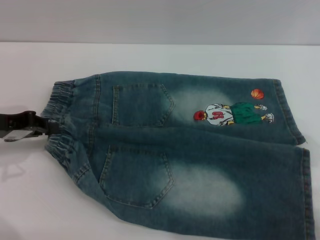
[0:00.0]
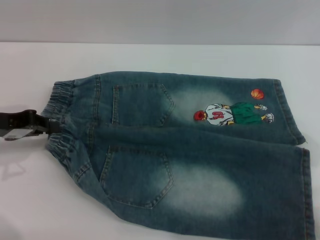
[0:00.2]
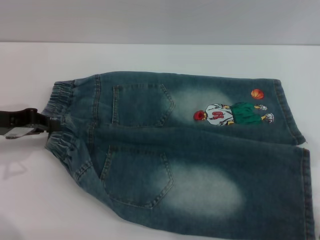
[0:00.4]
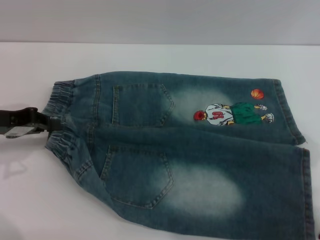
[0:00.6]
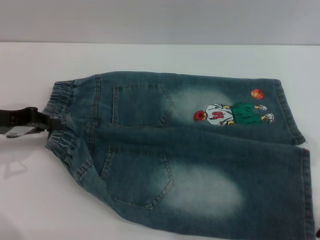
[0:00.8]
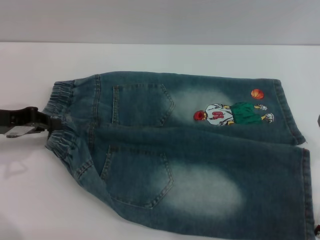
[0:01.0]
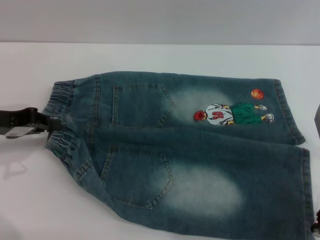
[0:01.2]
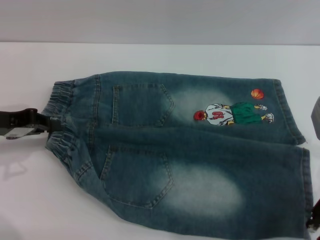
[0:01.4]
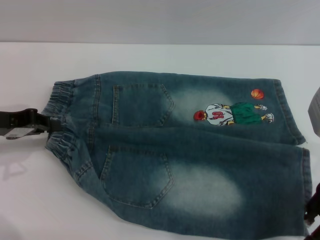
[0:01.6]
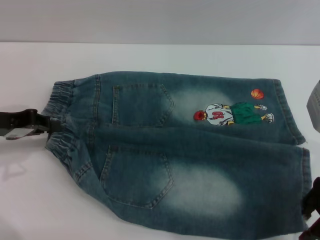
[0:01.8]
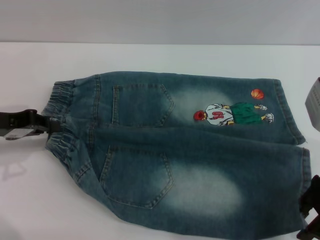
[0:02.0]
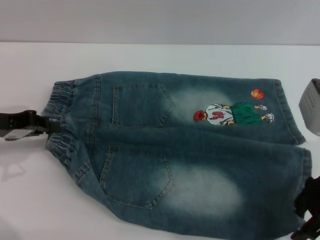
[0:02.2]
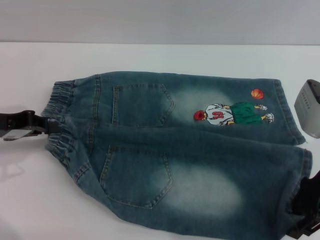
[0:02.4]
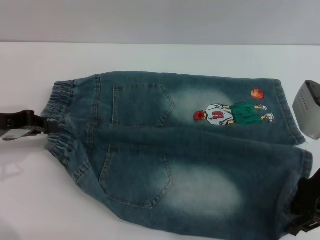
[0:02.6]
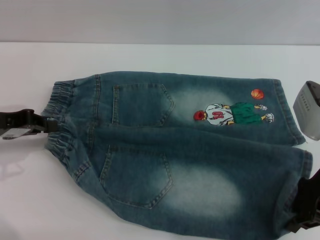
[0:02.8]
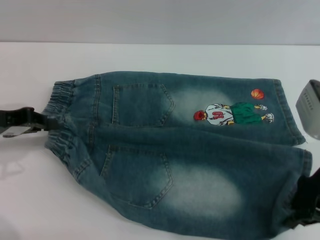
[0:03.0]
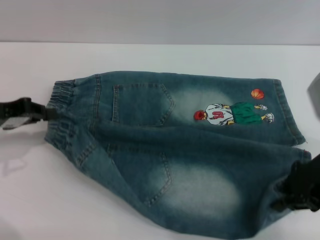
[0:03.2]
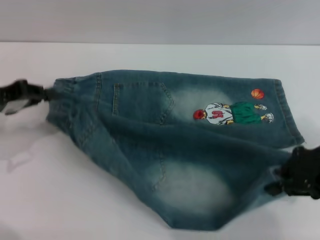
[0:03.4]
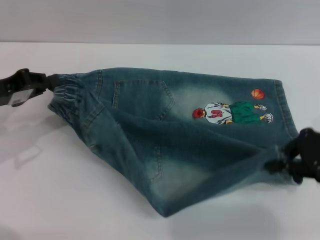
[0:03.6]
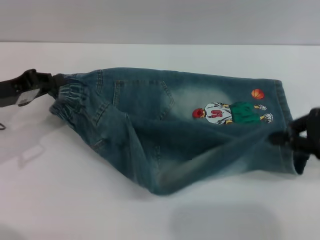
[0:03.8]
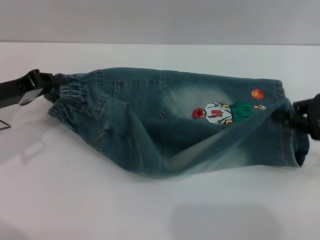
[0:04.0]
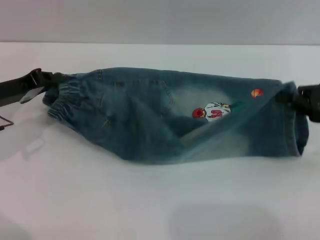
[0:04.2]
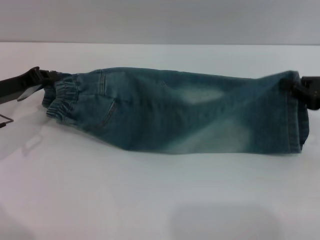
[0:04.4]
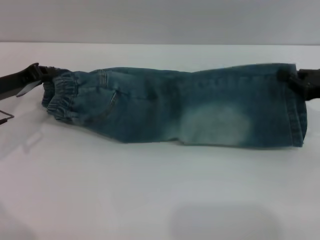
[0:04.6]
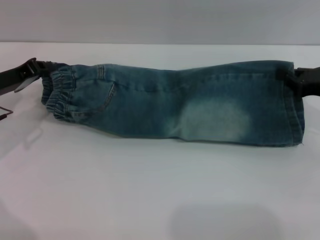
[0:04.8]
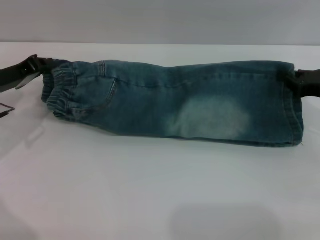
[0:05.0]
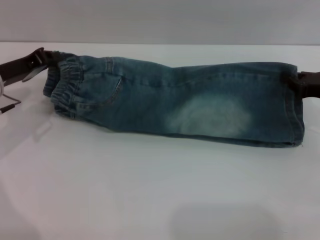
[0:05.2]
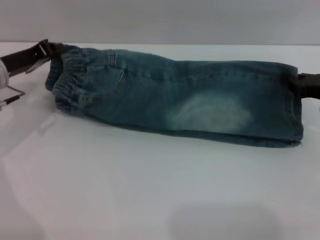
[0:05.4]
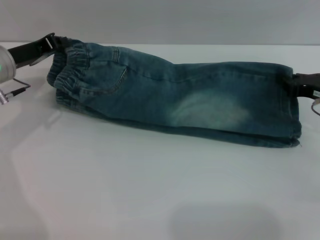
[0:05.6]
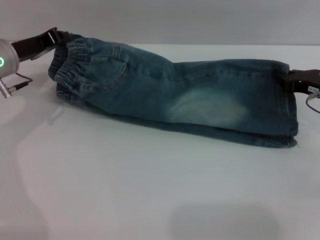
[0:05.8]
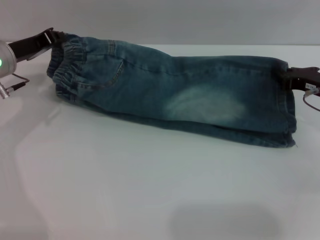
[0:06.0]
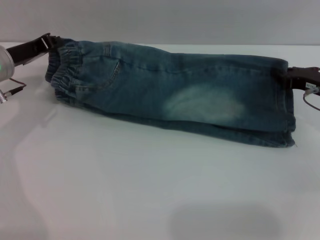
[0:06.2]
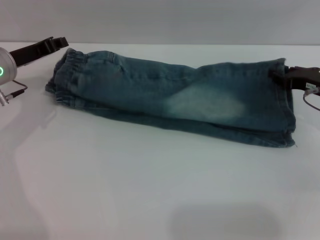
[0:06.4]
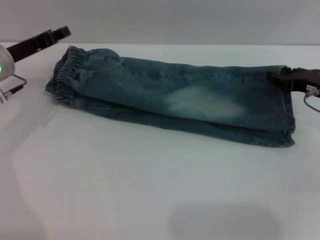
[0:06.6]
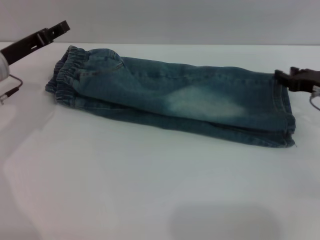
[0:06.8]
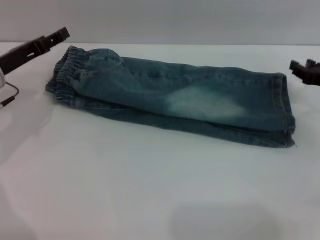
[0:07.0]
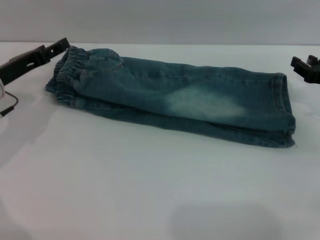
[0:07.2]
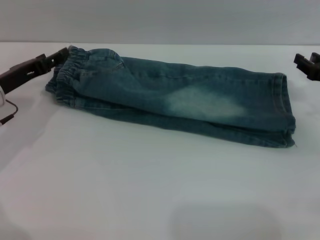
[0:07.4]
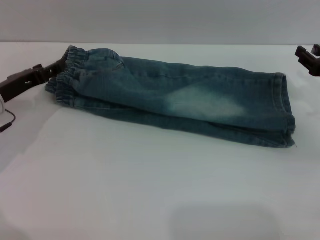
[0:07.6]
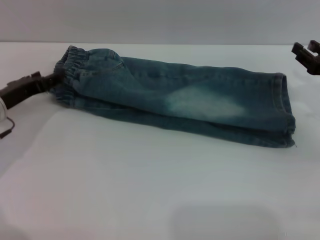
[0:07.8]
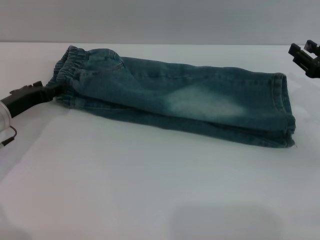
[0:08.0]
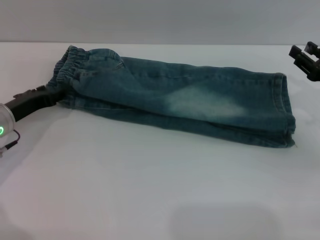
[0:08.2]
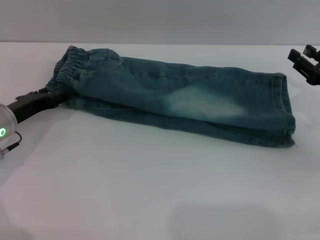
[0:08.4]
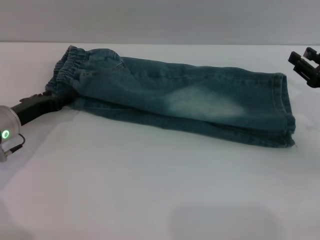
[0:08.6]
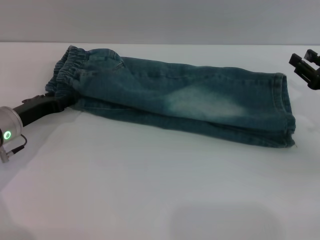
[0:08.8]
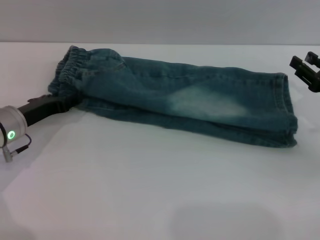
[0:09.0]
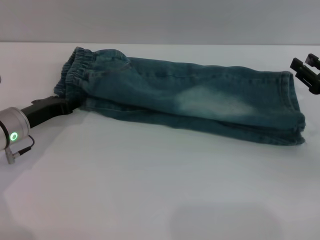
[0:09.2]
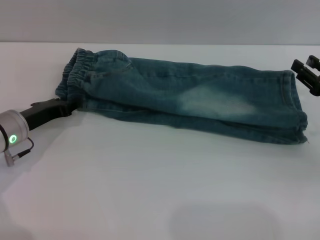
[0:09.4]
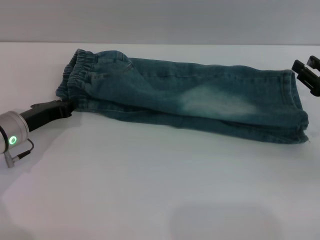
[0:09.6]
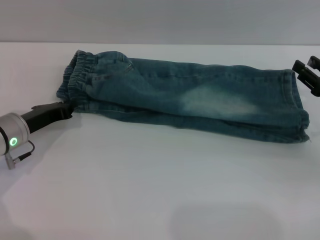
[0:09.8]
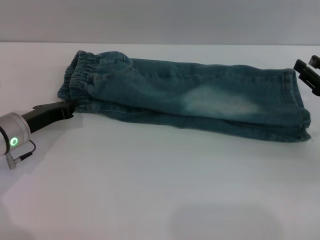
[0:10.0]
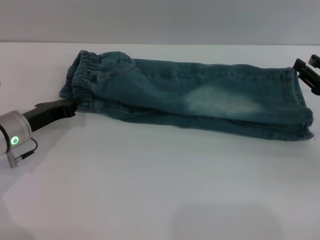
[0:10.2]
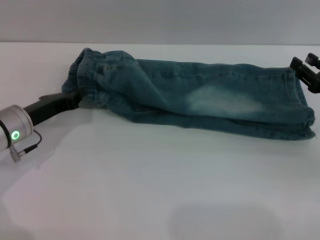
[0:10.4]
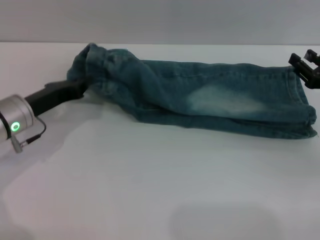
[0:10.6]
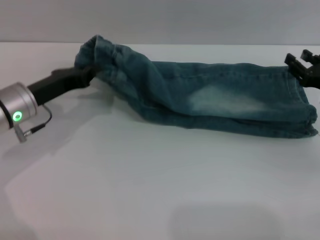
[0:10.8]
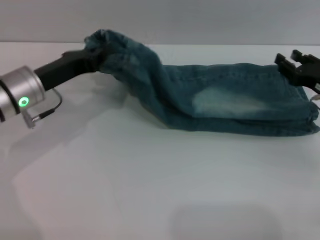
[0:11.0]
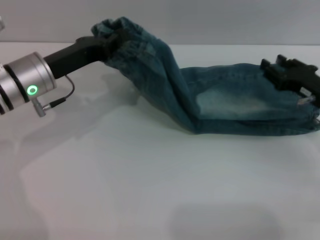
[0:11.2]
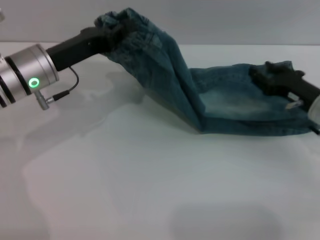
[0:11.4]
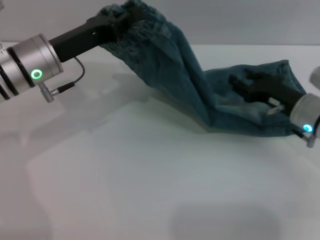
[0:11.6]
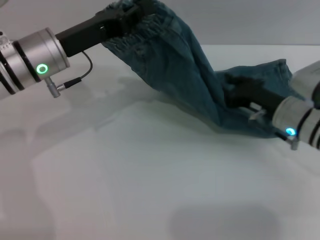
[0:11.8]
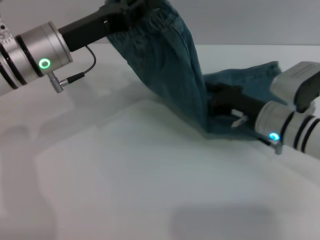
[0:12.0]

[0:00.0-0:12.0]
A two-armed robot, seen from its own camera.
Step, 0:00.0 to 0:07.0: Fold the bottom of the pants upward with both grippers.
0:00.0 to 0:01.6: There are only small adjustments of the grippers.
0:01.6 to 0:03.0: The right gripper closes.
0:03.0 to 0:04.4: The left gripper changes place by roughly 5 cm. The right gripper is displaced to the right by approximately 10 cm.
0:04.4 to 0:06.0: Both grippers travel together forward, roughly 5 cm.
0:06.0 to 0:07.6: The right gripper opens up; the left gripper travels backward by about 5 cm, and opens its fingers.
0:07.6 to 0:09.0: The grippers move only a little.
0:09.0 to 0:10.4: The left gripper closes.
0:10.4 to 0:12.0: The left gripper goes approximately 15 cm upward and to the right. The right gripper moves to the left, roughly 15 cm.

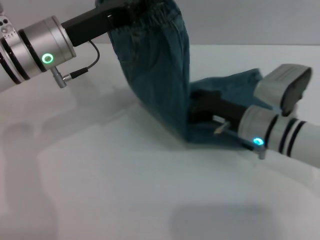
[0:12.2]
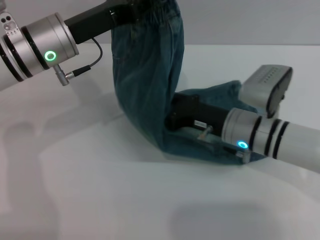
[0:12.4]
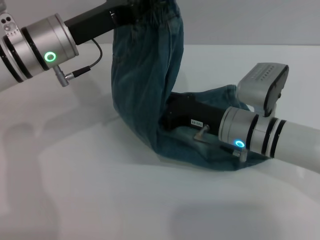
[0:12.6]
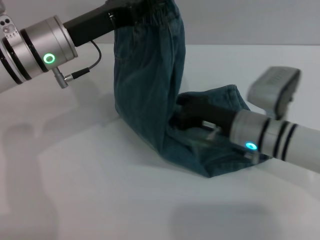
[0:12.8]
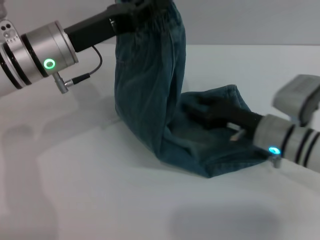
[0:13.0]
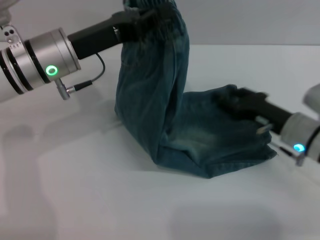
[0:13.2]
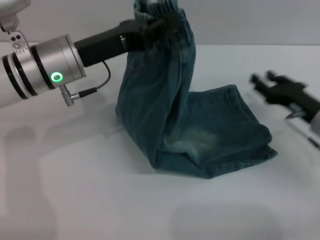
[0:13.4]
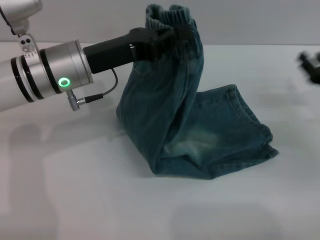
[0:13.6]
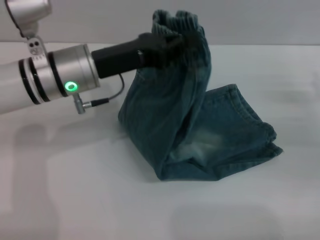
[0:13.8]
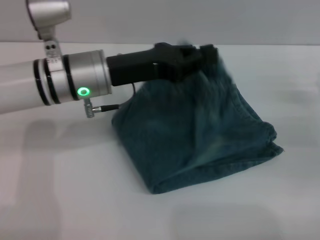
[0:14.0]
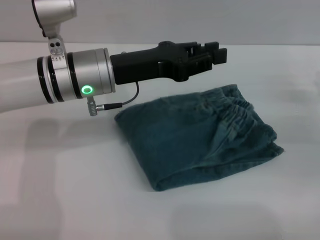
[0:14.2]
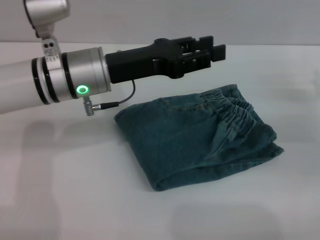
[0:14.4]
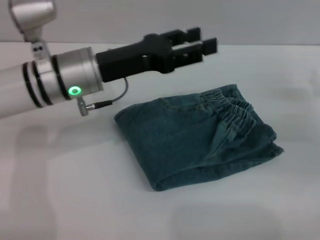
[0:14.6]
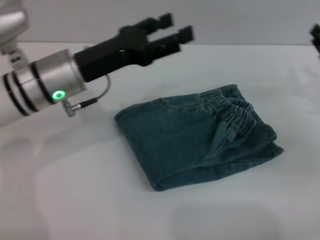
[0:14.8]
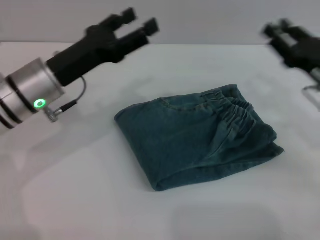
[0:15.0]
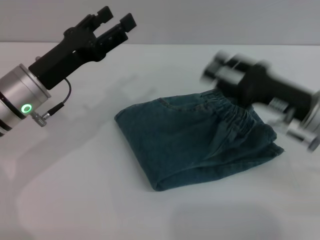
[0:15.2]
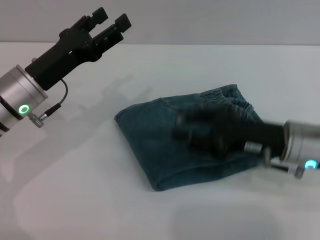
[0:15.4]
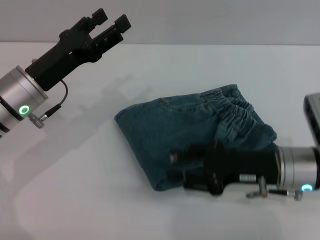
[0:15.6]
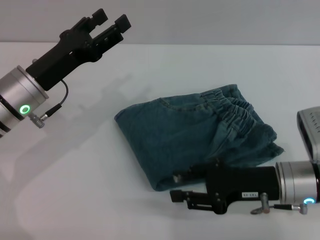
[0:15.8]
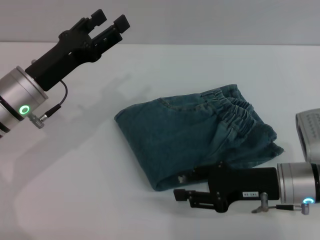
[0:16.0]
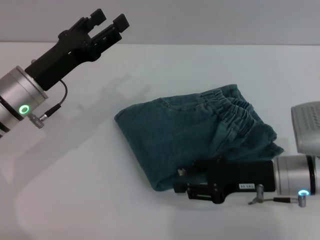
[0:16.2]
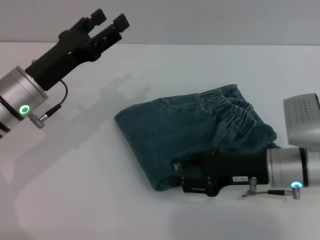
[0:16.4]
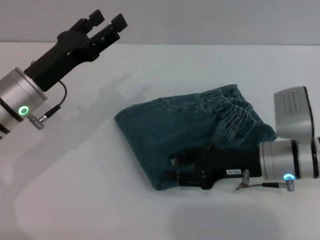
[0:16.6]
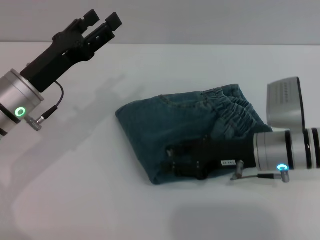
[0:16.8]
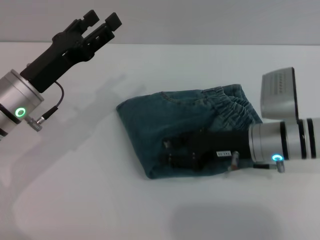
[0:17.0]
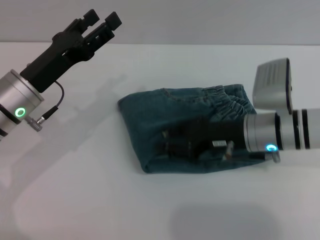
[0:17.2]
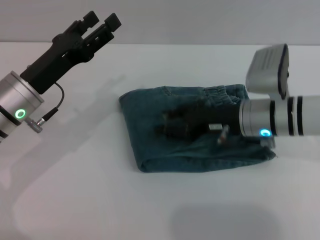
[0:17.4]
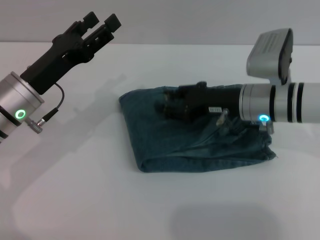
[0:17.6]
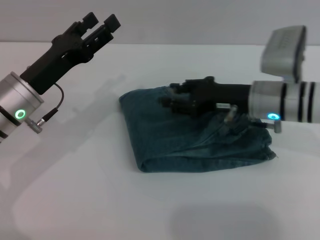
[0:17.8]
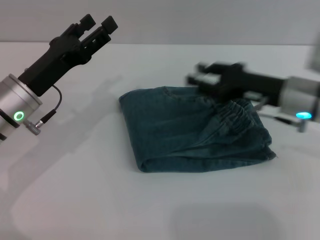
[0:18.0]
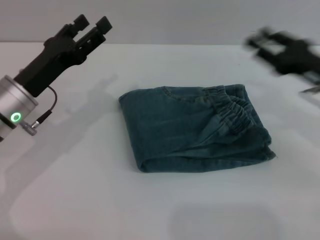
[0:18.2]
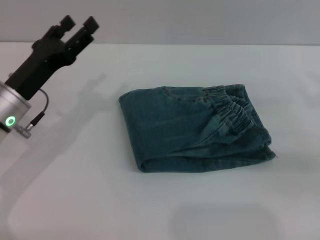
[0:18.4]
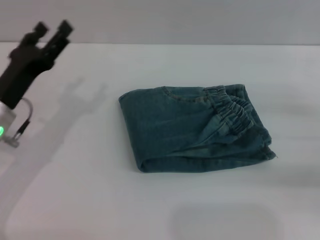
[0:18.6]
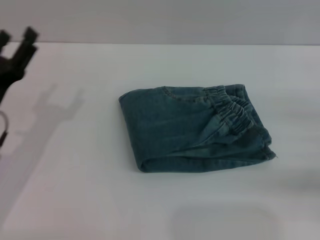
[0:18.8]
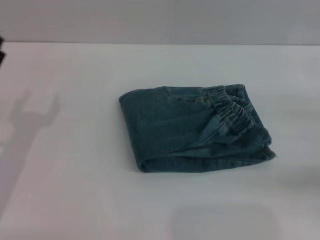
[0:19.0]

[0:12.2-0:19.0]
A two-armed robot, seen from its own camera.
Step, 0:12.2 to 0:14.2: Fold the pants from left to right with the left gripper.
Step, 0:14.6 to 0:17.8: Place the folded trousers onto the center area with the right grippers.
0:12.2 to 0:13.6: The right gripper heads to the right, covering about 15 cm.
0:13.6 to 0:15.0: The right gripper goes roughly 5 cm to the left. The left gripper shifts by roughly 5 cm, and opens its fingers.
0:15.0 to 0:16.2: The right gripper travels to the left and backward by approximately 10 cm.
0:16.2 to 0:17.6: The right gripper goes about 10 cm forward.
0:17.6 to 0:19.0: The right gripper heads to the right and backward, covering some 25 cm, while the left gripper moves backward and to the left, some 10 cm.

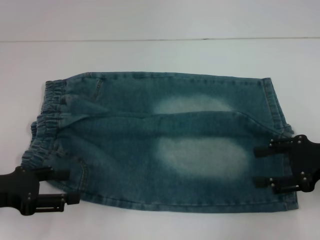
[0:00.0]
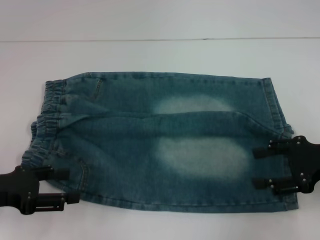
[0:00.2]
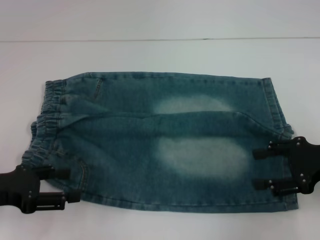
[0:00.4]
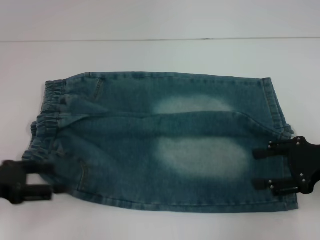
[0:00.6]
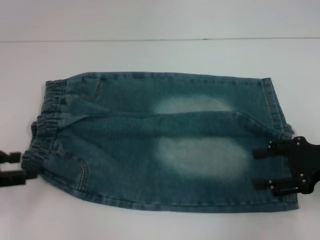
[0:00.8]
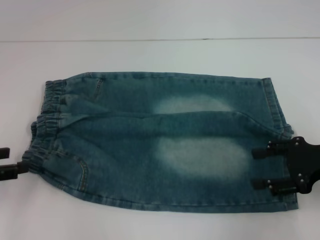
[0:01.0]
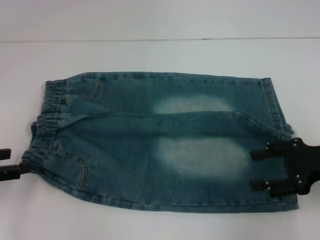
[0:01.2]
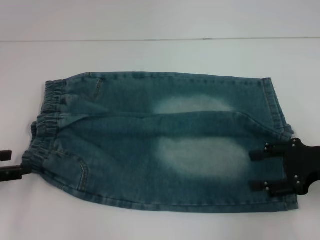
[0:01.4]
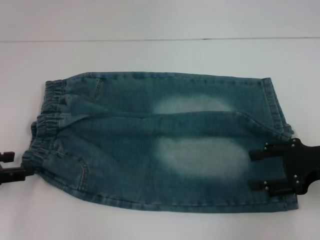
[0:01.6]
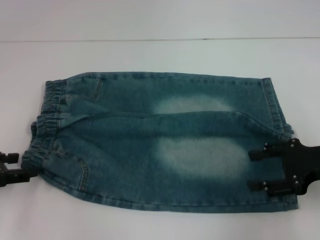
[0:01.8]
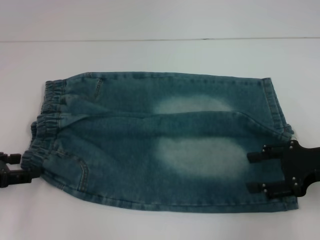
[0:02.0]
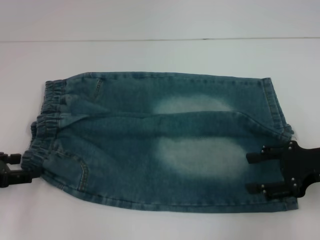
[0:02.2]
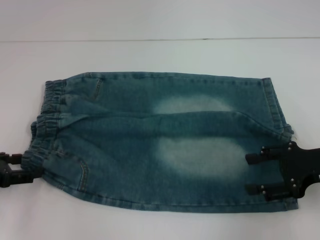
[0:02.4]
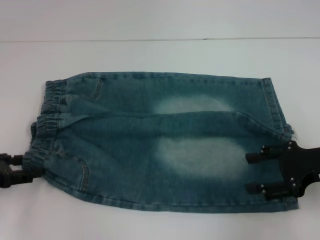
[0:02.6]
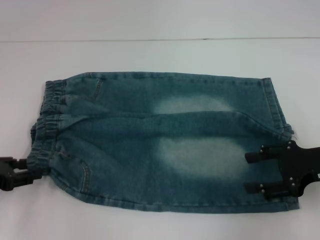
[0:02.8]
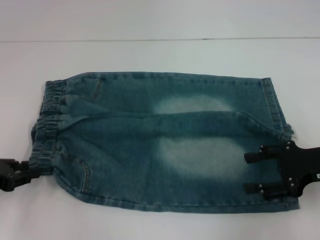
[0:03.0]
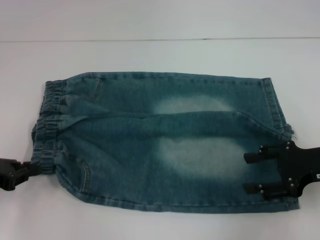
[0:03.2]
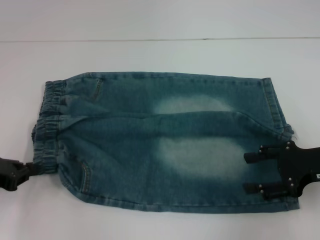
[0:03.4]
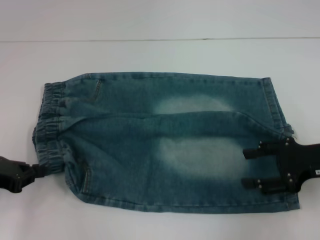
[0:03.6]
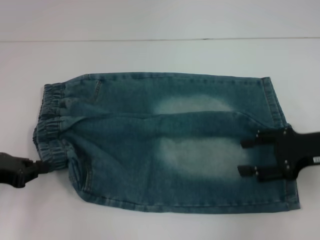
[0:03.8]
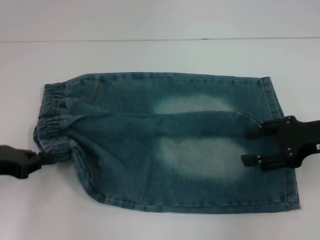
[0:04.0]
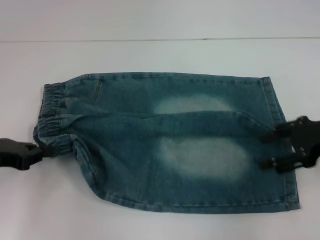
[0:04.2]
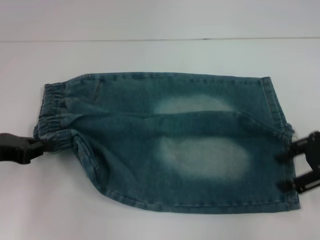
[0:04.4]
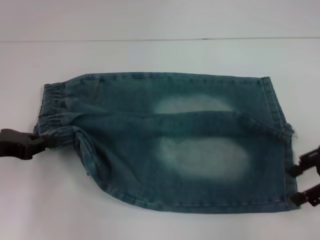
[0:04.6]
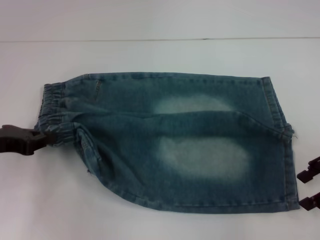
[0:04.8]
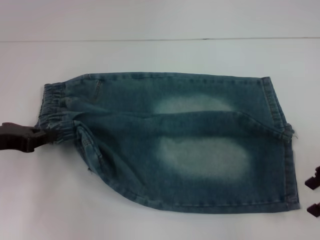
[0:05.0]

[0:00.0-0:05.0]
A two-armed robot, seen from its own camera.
Step, 0:00.0 to 0:02.8: Hold the lower left waistband with your left hand.
0:01.6 to 0:03.4: The left gripper closes up.
0:03.4 to 0:05.0: The left gripper moves about 5 cm. Meanwhile the right gripper changes place by approximately 5 cm.
